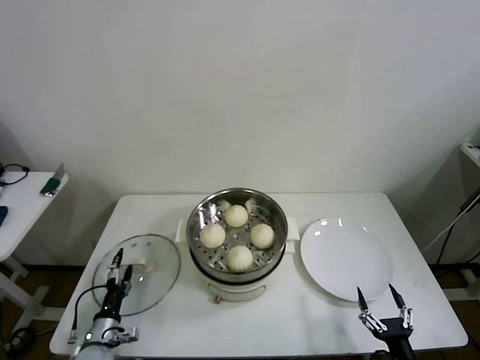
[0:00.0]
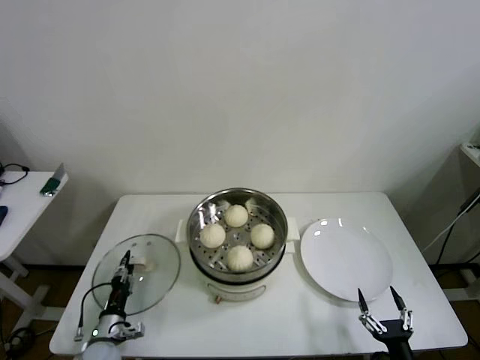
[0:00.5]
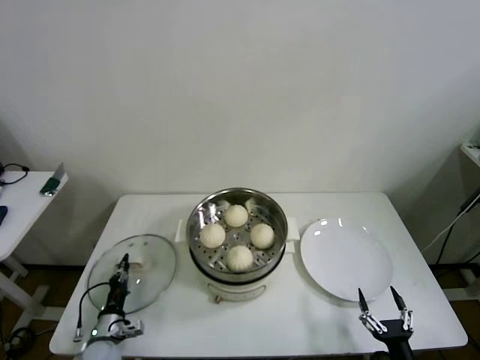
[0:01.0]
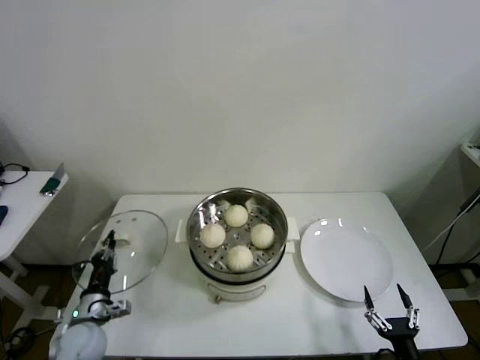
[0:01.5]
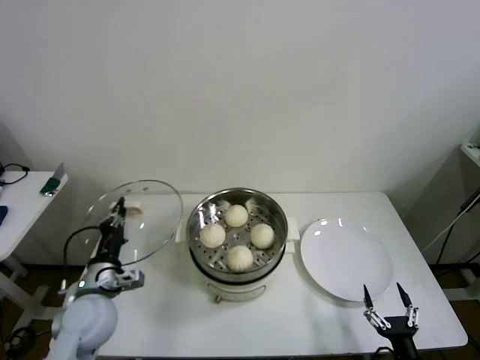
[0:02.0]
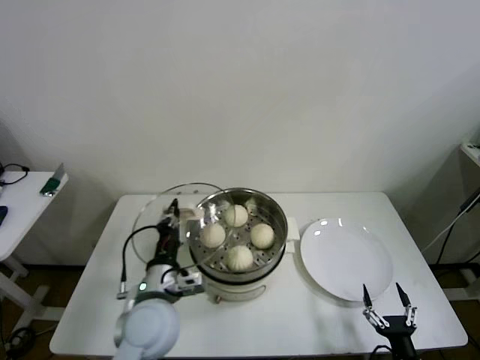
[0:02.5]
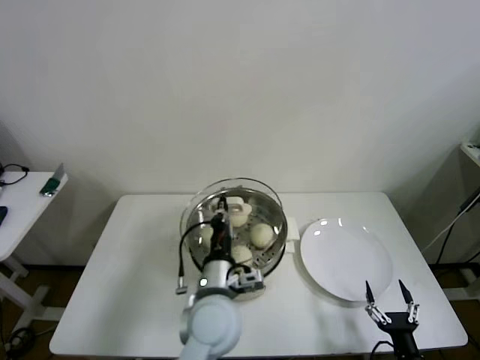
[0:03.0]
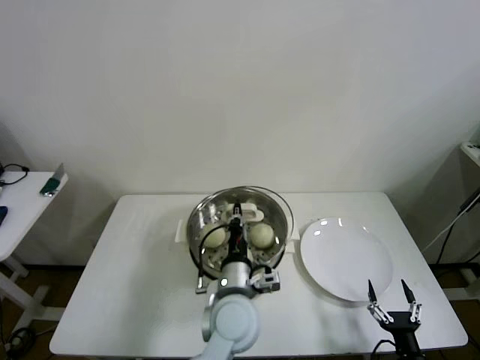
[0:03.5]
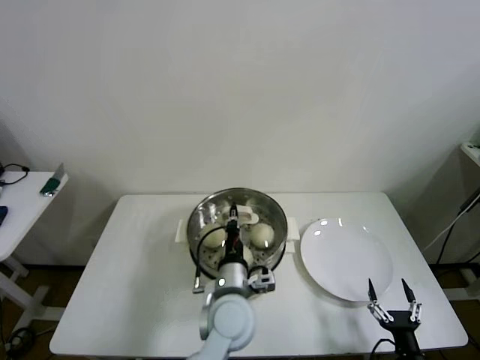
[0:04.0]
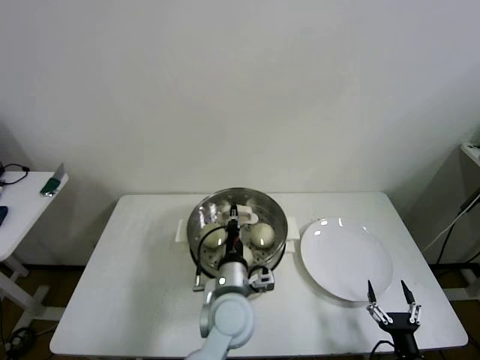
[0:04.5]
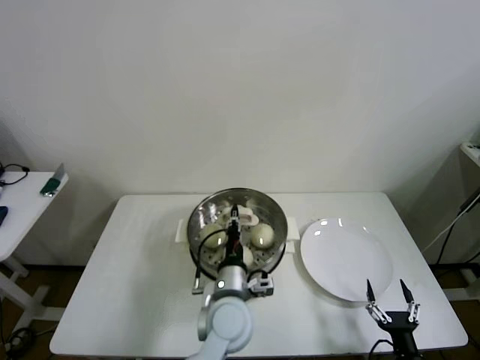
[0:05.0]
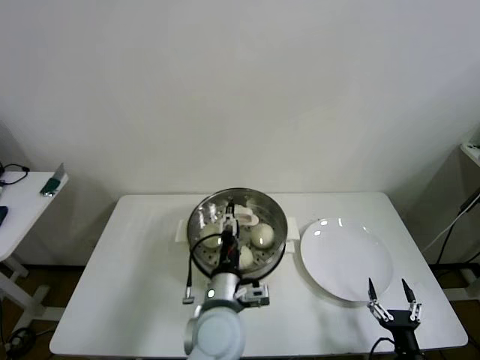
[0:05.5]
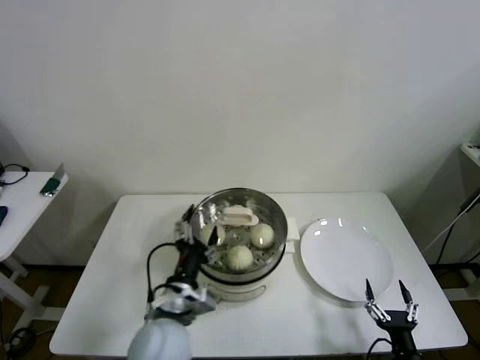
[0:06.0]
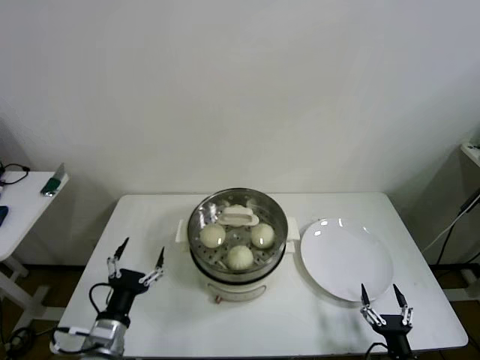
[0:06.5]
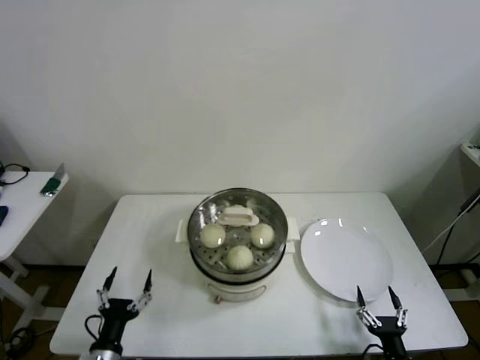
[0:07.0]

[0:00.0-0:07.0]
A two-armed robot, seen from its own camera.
Step, 0:01.0 to 0:05.0: Place the pot lid on the steamer with left gripper.
0:00.0 to 0:02.0: The left gripper travels upward by some 20 cm, and closes.
0:02.0 to 0:03.5: The left gripper heads to the right, covering about 30 cm.
0:03.5 to 0:05.0: The grippers stay close to where they were, moving slightly.
0:05.0 to 0:07.0: The left gripper moves to the left and backward, some 30 cm, and opens up.
